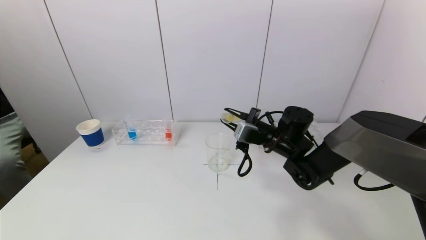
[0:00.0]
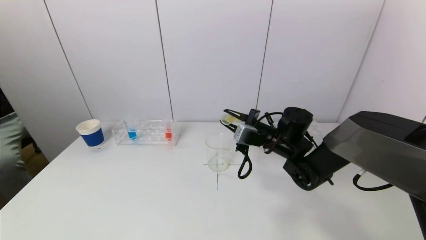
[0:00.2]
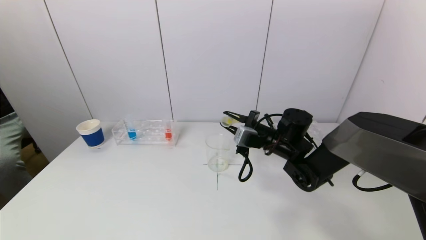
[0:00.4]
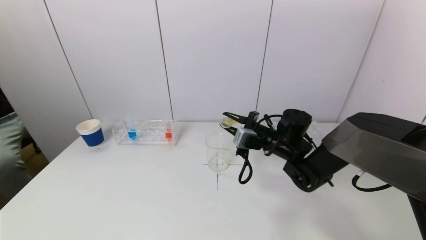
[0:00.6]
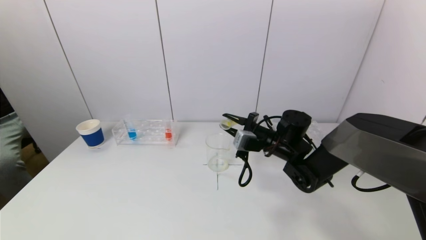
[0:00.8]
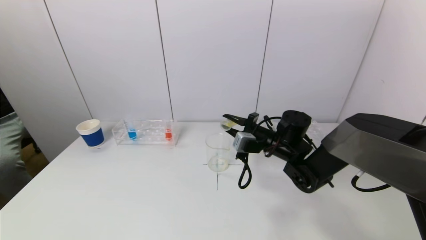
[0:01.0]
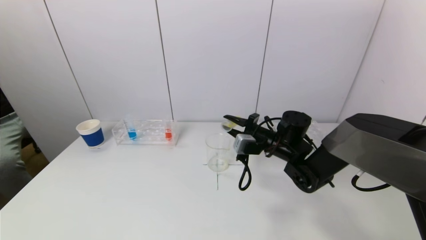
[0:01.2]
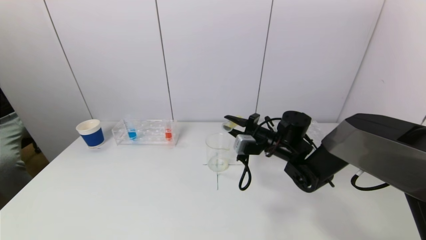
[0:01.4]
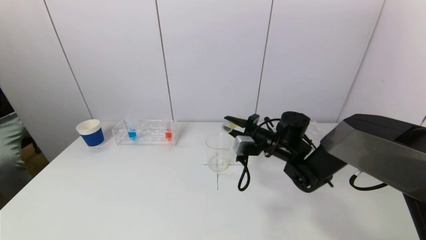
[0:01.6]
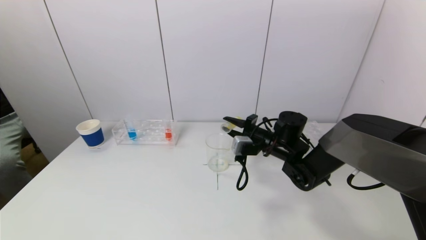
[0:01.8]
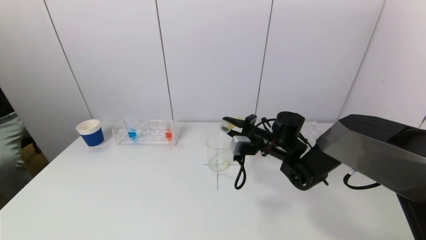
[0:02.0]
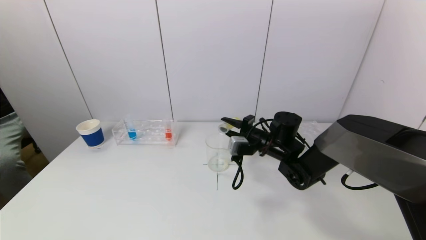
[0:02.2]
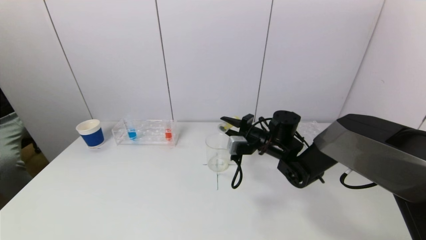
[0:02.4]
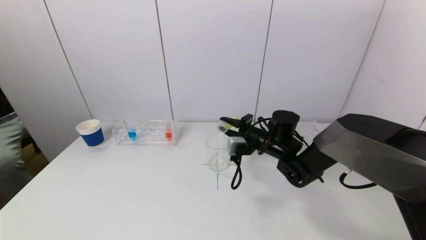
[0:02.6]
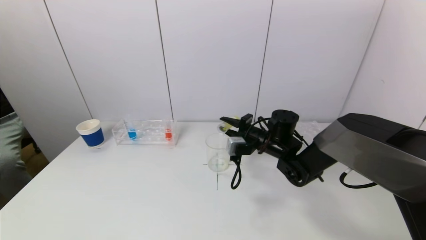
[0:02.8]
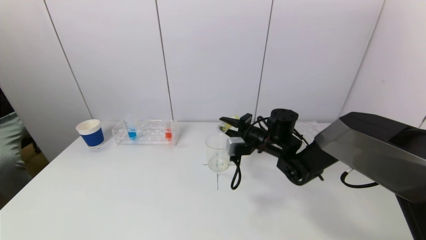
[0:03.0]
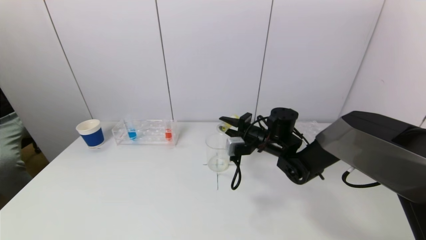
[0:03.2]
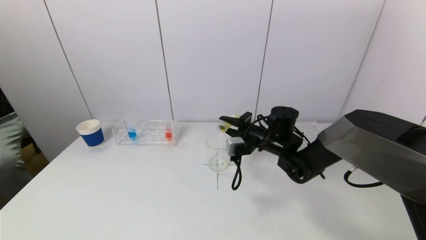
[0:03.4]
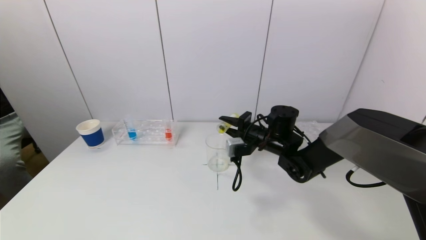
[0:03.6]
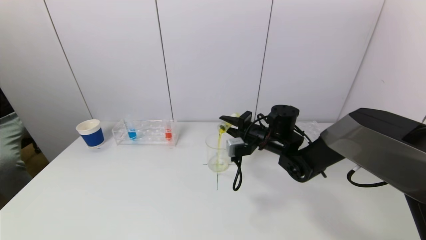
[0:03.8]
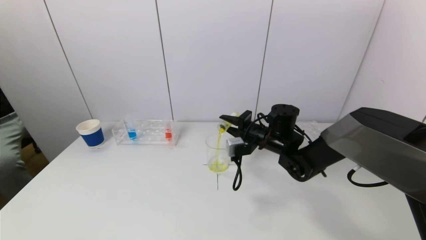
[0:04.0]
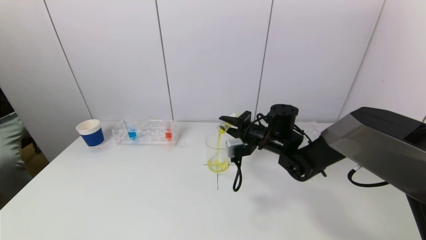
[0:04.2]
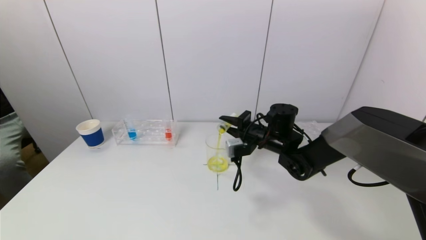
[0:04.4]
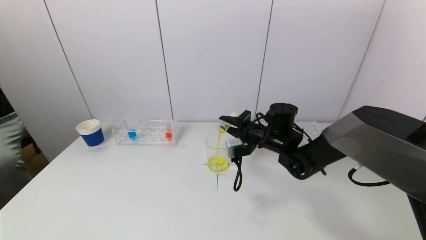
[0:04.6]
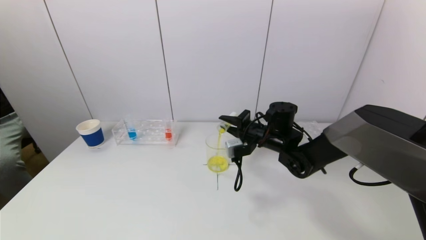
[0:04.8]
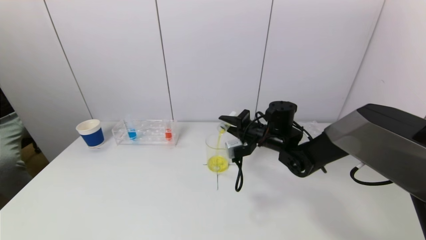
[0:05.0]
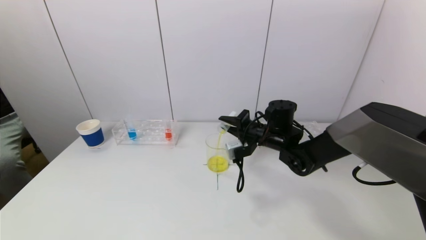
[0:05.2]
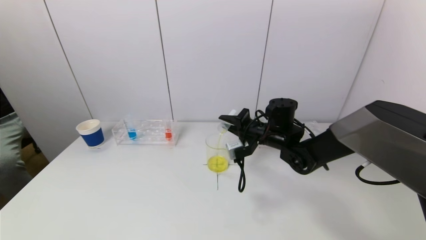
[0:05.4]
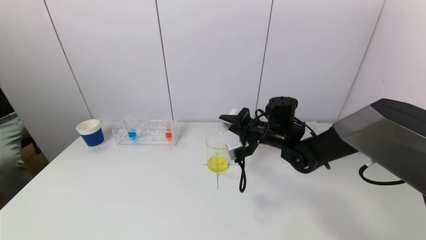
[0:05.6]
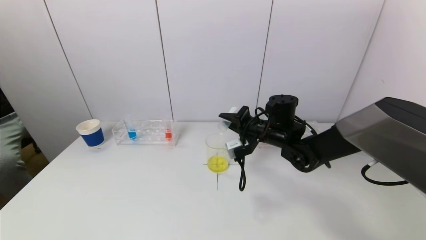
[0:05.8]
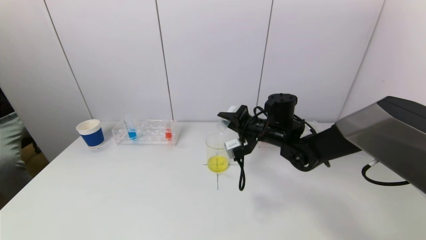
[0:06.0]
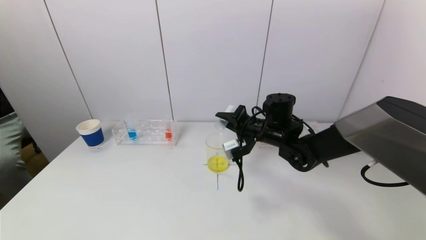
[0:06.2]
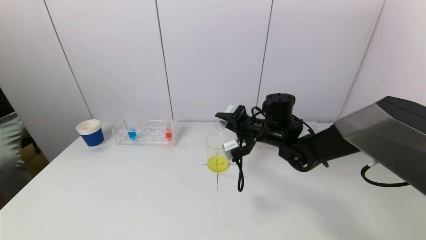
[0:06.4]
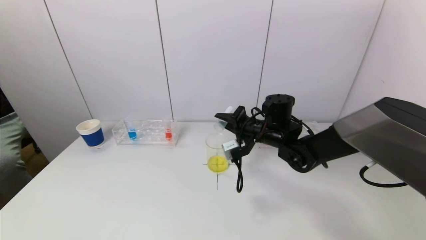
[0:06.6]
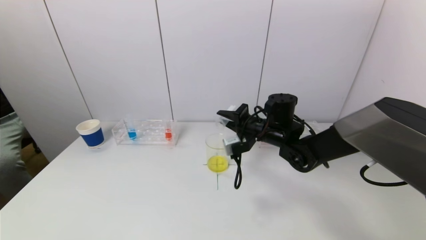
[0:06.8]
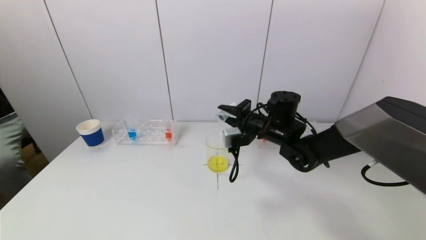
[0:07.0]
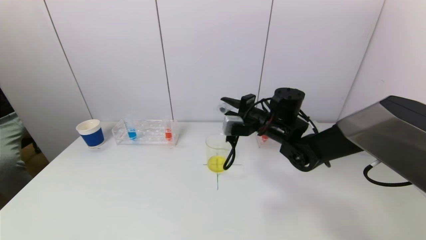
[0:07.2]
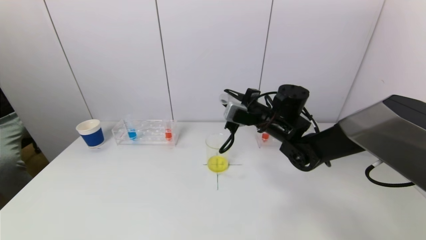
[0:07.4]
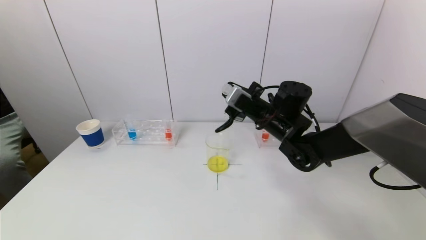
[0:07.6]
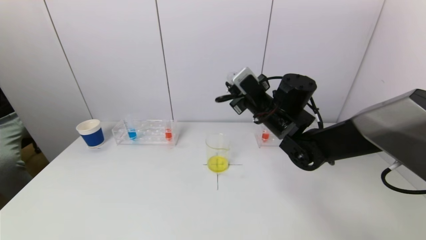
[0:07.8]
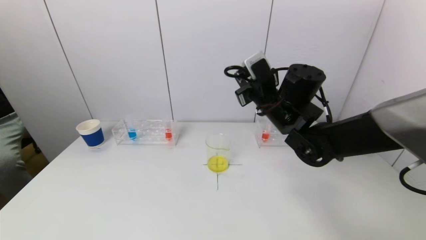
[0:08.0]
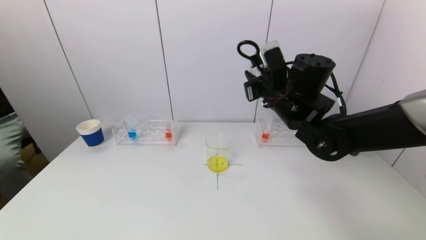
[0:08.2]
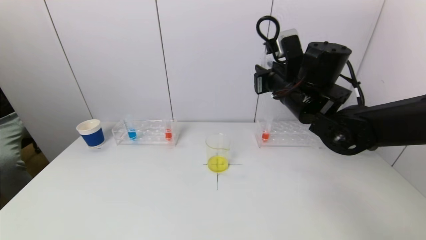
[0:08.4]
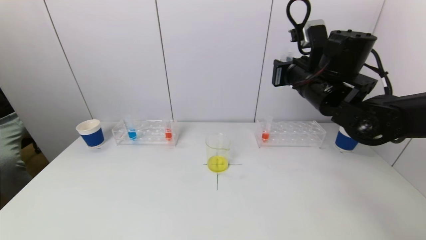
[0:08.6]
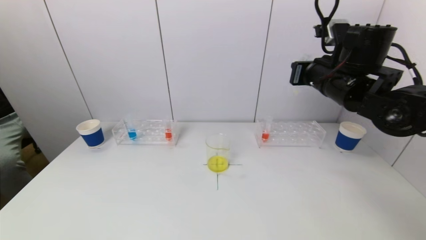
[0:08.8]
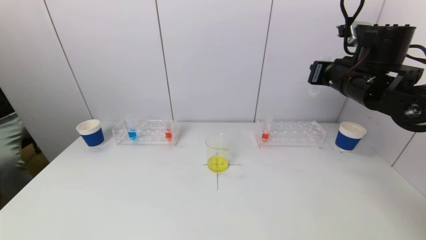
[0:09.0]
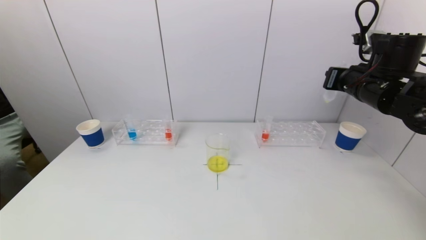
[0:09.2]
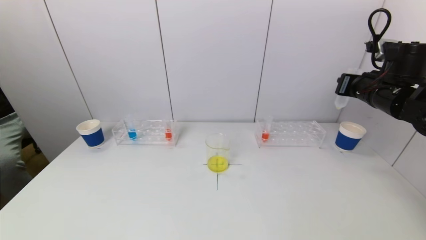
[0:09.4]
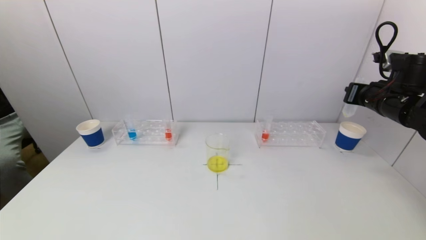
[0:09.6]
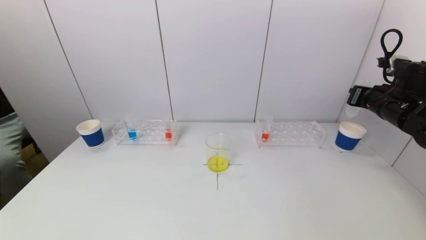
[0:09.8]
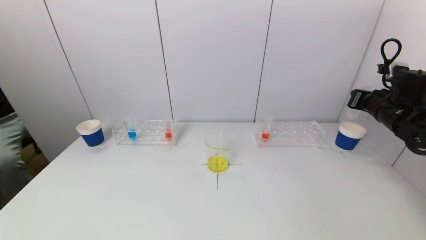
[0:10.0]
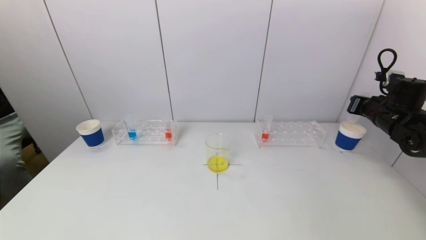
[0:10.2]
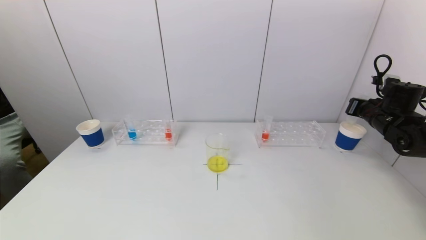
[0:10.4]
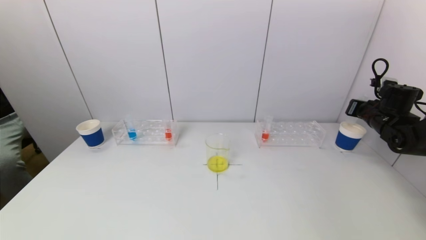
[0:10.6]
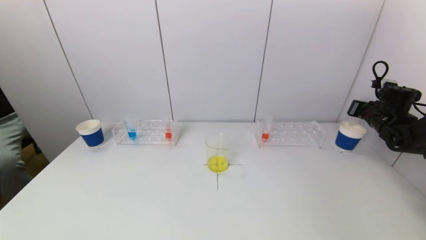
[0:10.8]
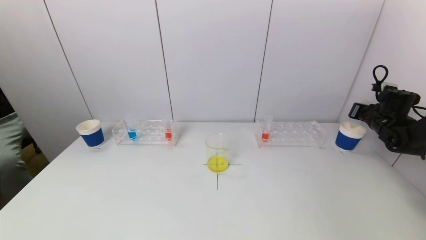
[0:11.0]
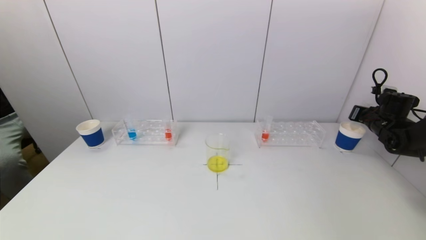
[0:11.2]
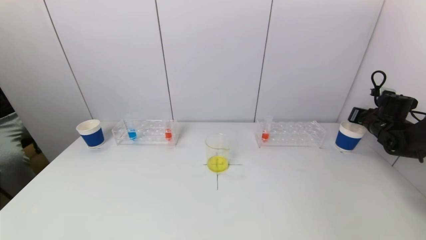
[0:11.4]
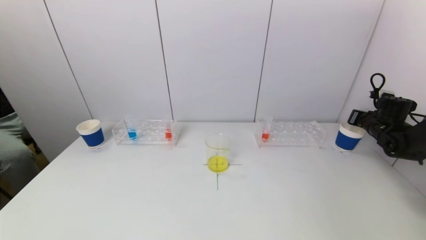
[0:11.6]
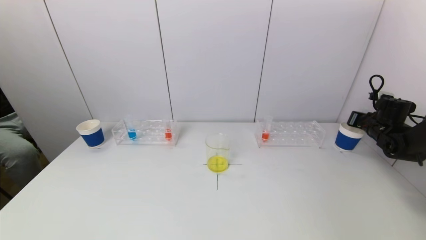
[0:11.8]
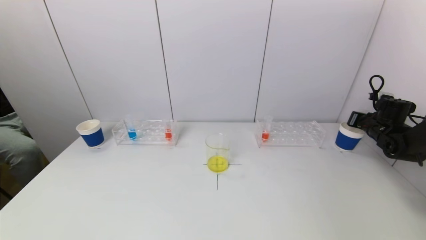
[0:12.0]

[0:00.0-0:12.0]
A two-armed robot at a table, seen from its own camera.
Task of the whole recording: pick up a test tube with pigment on left test tube rack and a test tube with pigment on right test tube rack by grippers and pour them into the beaker.
Step, 0:00.0 to 0:06.4: Pour the yellow reagent into the graduated cylinder with the right gripper.
0:00.0 to 0:01.6: The grippers move only a little.
0:01.6 to 0:04.4: The grippers make only small movements.
0:04.4 to 0:06.0: The grippers make only small movements.
0:06.0 to 0:07.6: The right gripper shifts by roughly 5 cm.
0:07.6 to 0:09.0: The right gripper travels to the right and upward by about 15 cm.
0:09.0 to 0:10.4: The right gripper shifts some 20 cm to the right and downward.
0:10.4 to 0:12.0: The right gripper is displaced downward by roughly 5 cm.

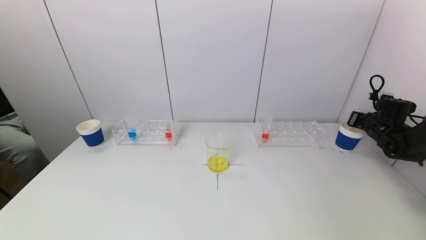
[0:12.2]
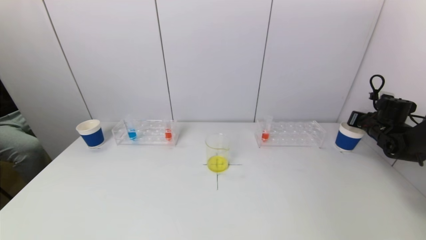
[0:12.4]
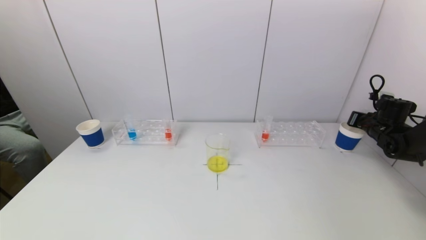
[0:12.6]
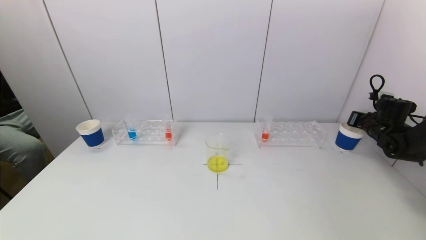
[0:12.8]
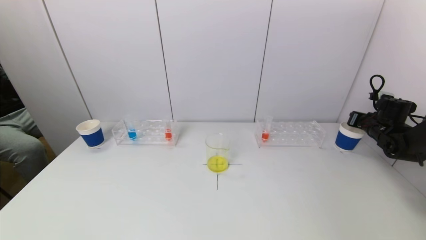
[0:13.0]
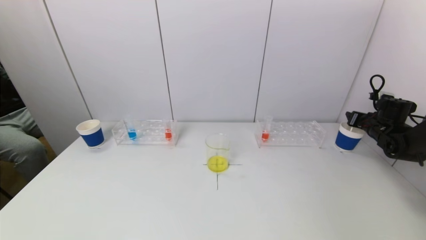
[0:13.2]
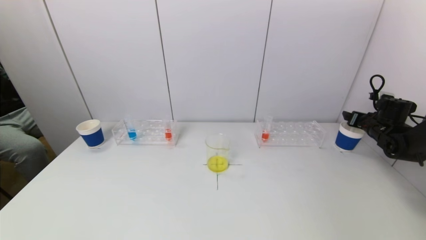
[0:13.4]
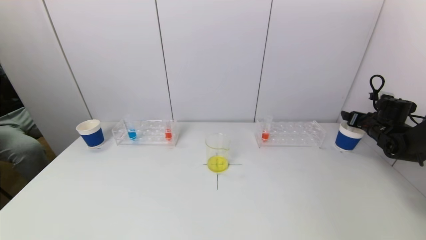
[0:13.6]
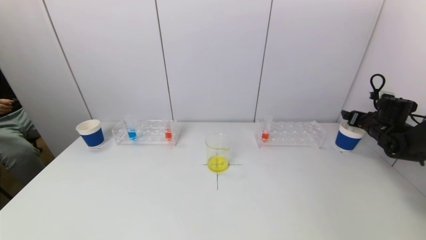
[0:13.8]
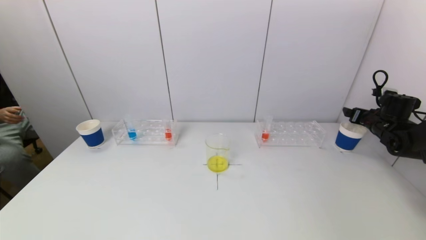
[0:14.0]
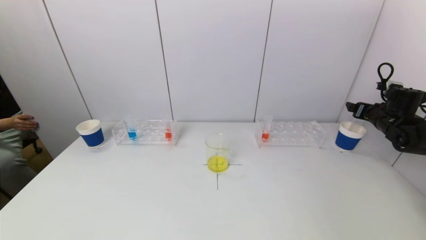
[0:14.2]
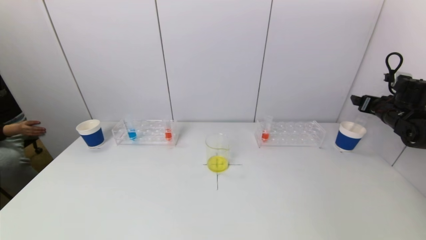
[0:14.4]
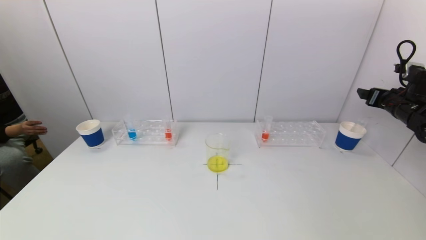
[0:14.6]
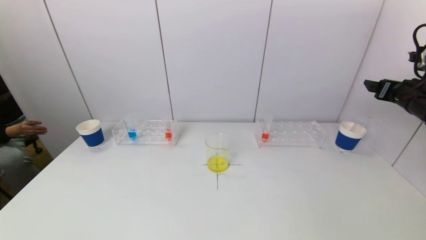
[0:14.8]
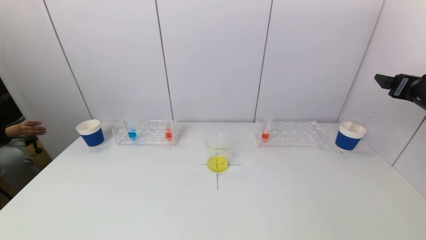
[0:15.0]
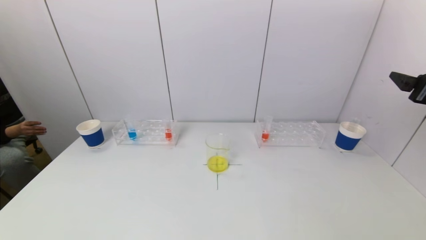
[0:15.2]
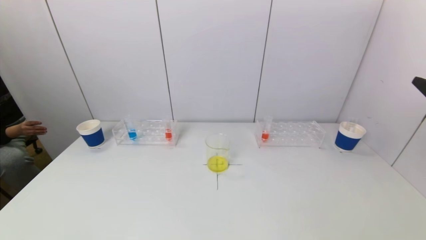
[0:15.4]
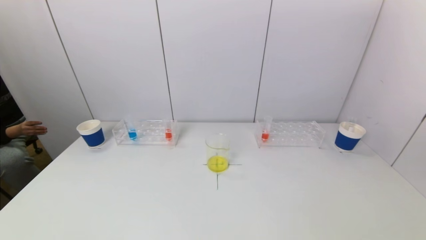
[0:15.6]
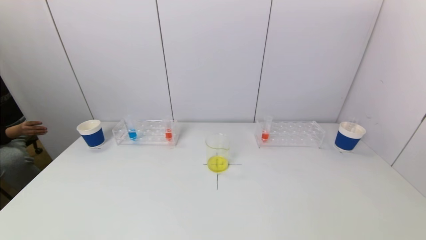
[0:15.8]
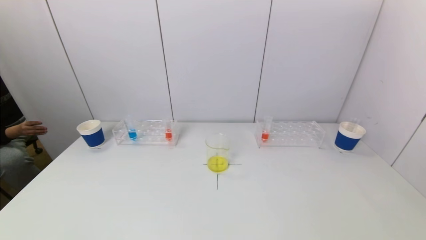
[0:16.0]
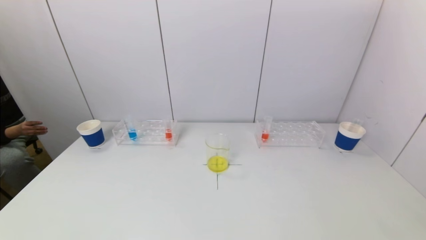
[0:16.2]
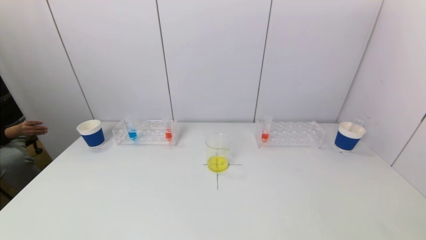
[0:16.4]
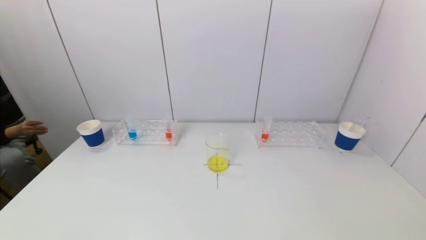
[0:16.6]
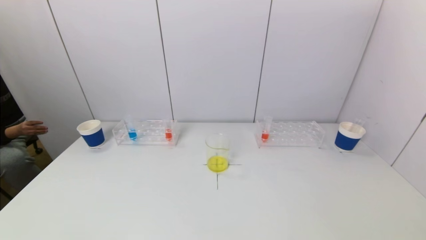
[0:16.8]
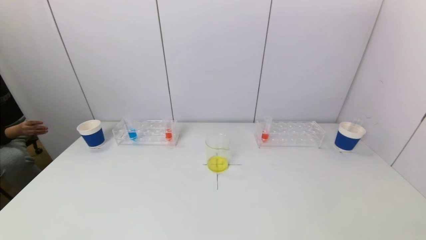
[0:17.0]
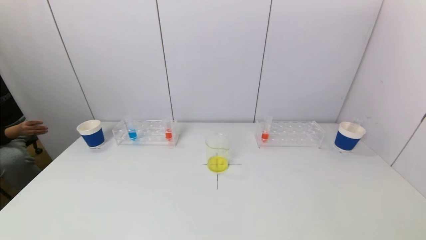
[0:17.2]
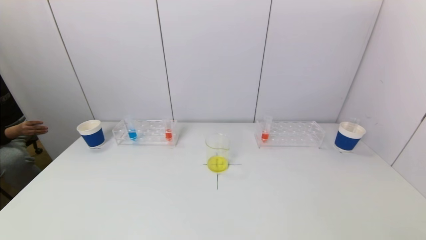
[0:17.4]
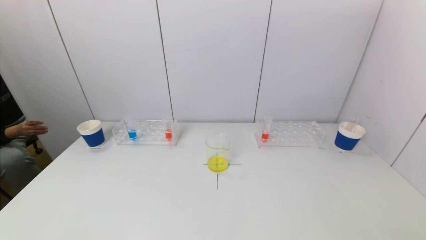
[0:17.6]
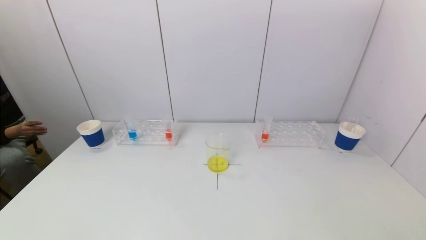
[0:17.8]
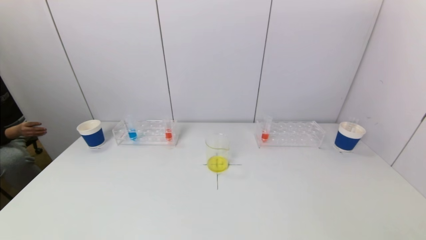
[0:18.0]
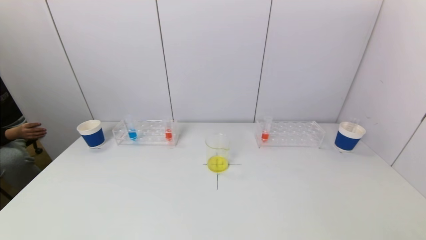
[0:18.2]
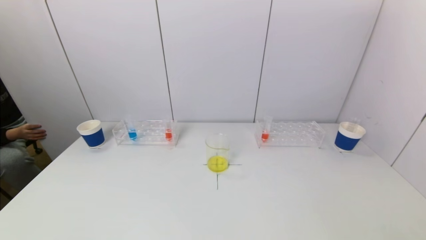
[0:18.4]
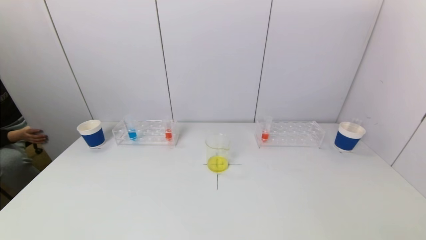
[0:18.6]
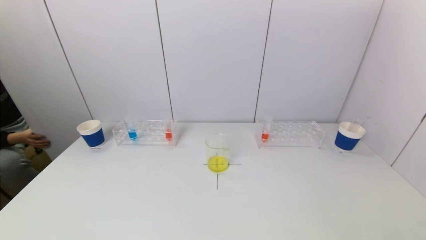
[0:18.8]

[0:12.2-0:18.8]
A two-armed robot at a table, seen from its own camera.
Task of the whole recording: pick up a test tube with pigment on left test tube rack and a test tube with pigment on right test tube rack by grippers and pour them into the beaker.
0:12.2 to 0:13.8: The right gripper opens.
0:13.8 to 0:15.4: The right gripper is displaced backward and upward by about 30 cm.
0:17.2 to 0:18.8: The grippers make only small movements.
